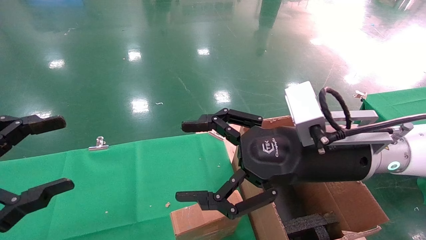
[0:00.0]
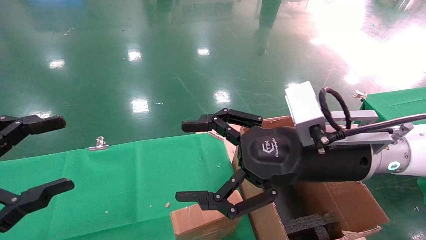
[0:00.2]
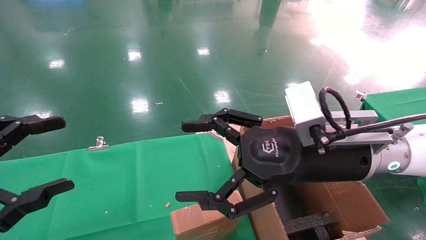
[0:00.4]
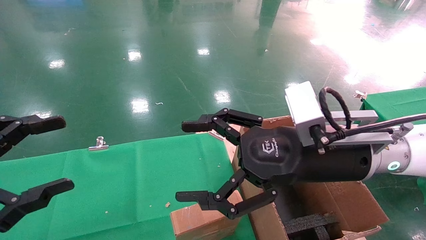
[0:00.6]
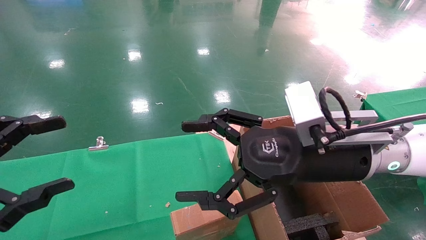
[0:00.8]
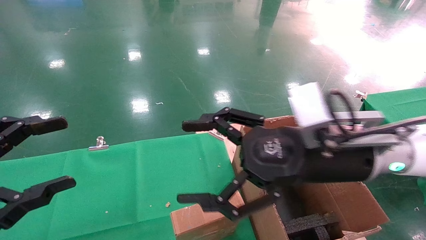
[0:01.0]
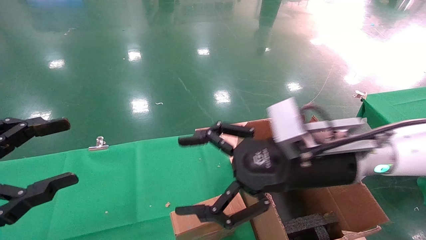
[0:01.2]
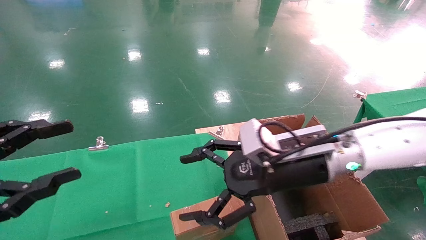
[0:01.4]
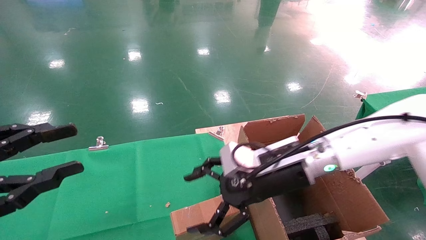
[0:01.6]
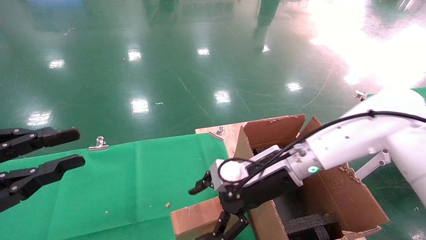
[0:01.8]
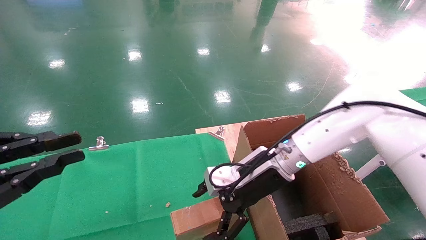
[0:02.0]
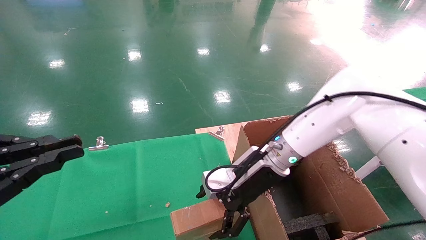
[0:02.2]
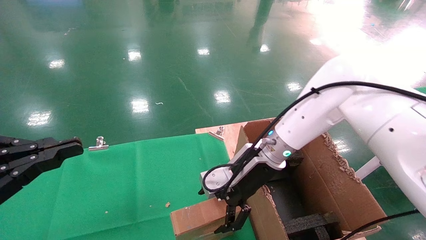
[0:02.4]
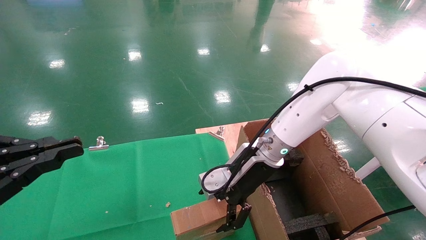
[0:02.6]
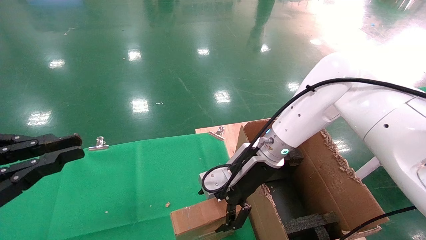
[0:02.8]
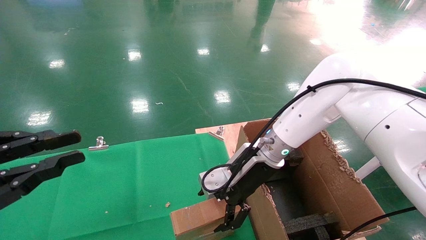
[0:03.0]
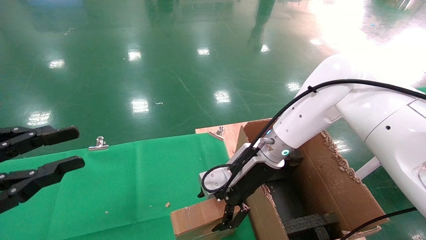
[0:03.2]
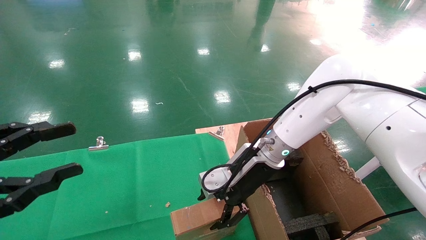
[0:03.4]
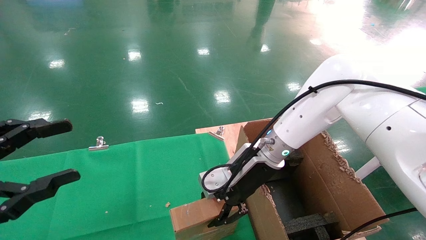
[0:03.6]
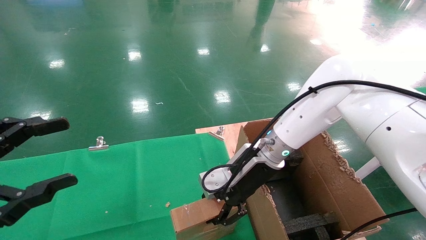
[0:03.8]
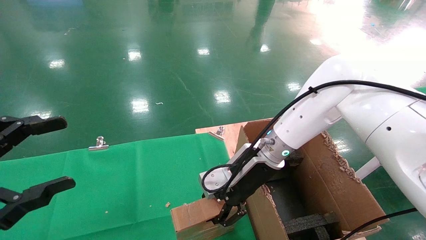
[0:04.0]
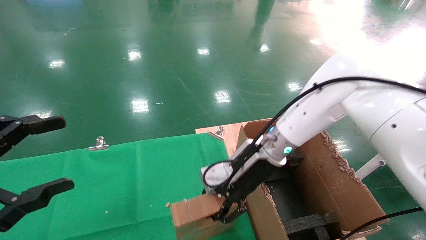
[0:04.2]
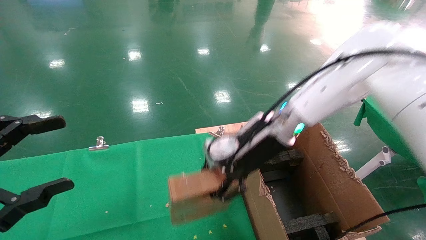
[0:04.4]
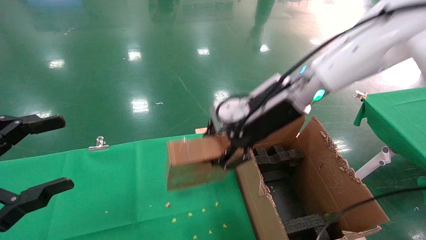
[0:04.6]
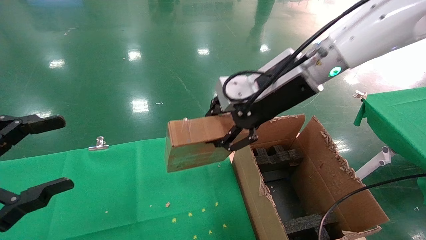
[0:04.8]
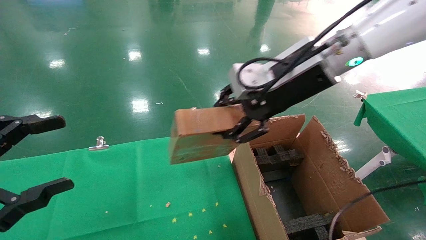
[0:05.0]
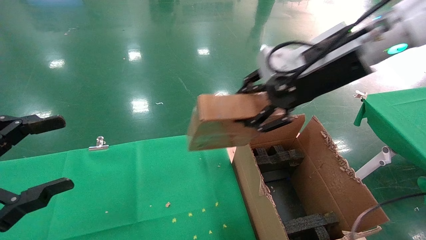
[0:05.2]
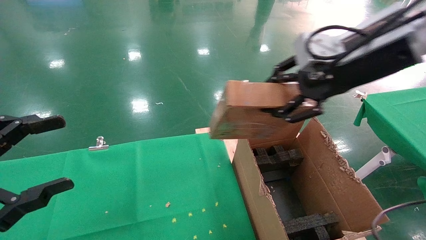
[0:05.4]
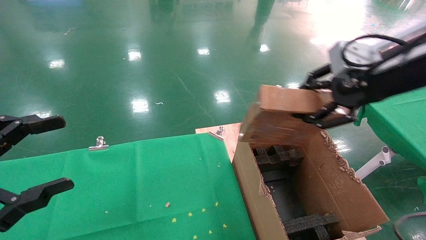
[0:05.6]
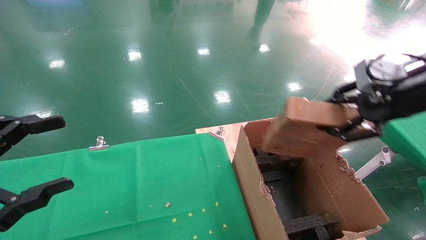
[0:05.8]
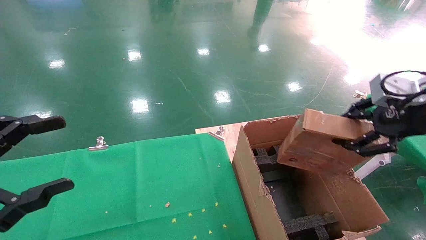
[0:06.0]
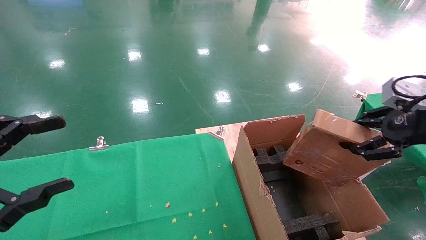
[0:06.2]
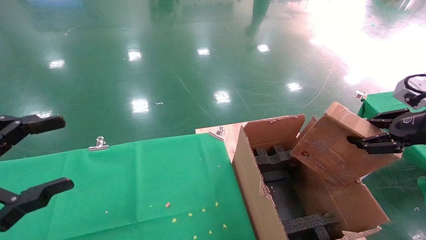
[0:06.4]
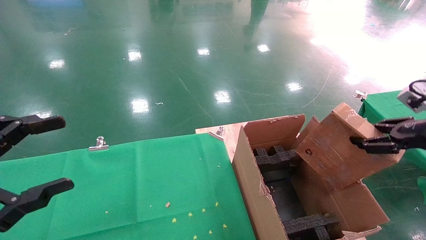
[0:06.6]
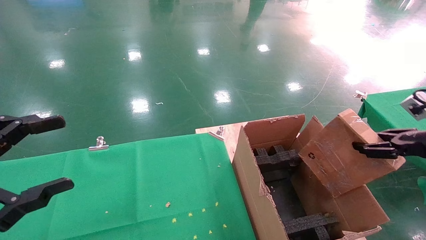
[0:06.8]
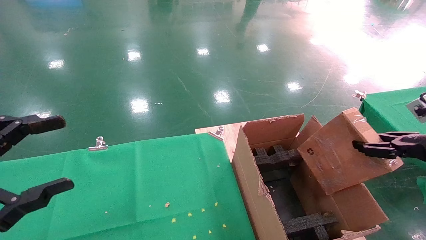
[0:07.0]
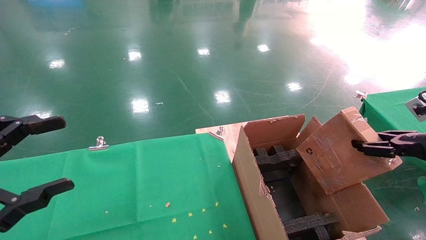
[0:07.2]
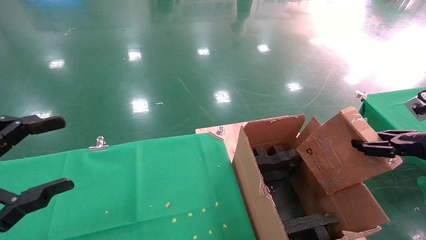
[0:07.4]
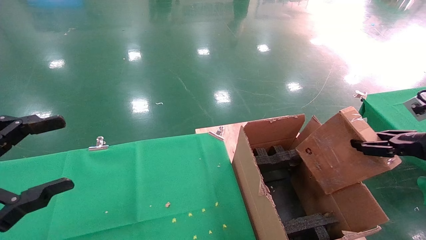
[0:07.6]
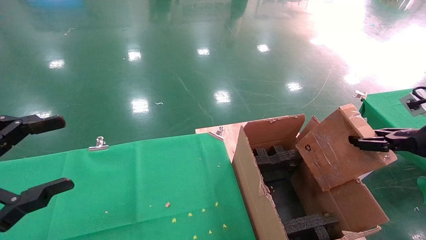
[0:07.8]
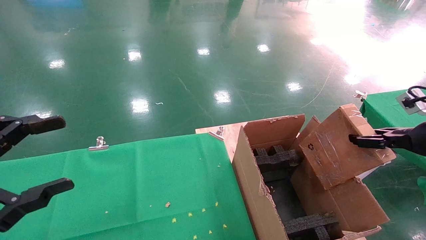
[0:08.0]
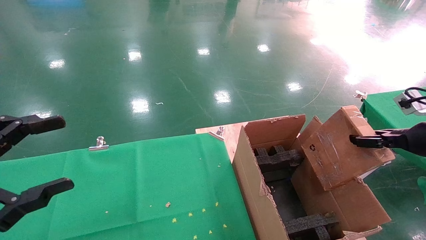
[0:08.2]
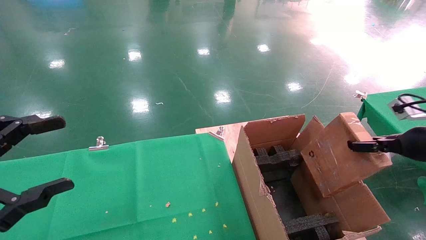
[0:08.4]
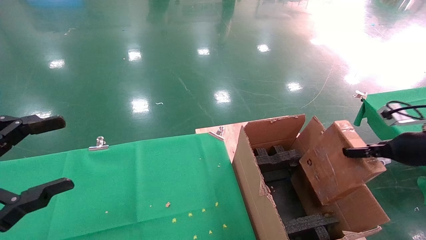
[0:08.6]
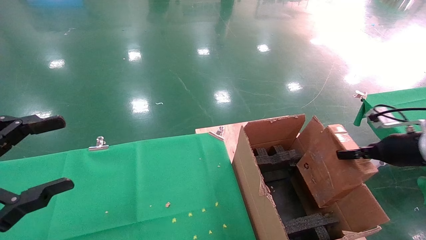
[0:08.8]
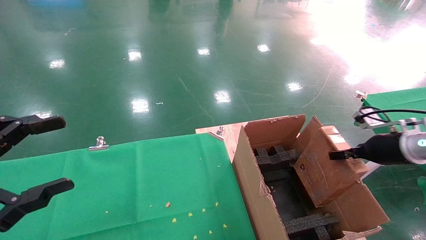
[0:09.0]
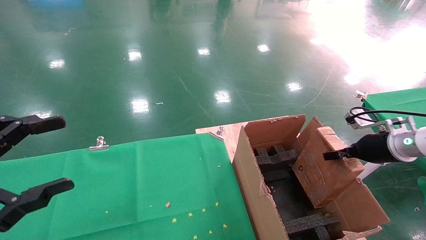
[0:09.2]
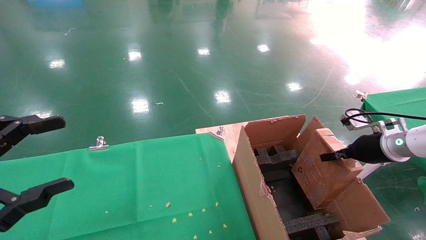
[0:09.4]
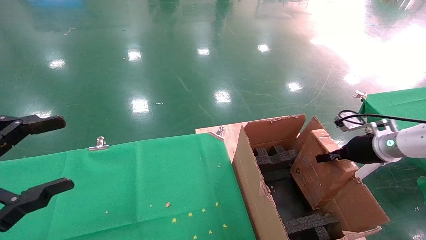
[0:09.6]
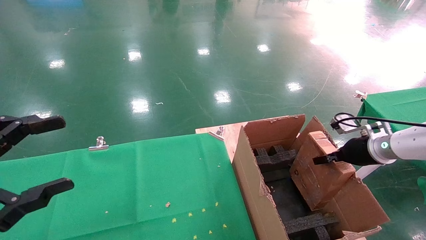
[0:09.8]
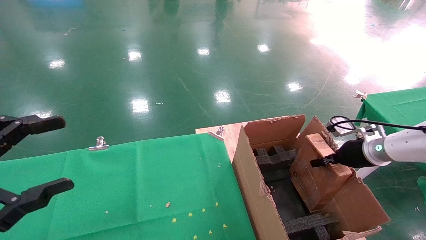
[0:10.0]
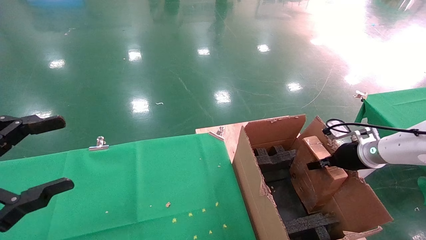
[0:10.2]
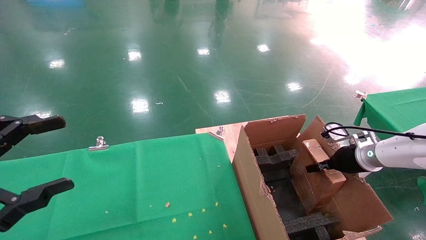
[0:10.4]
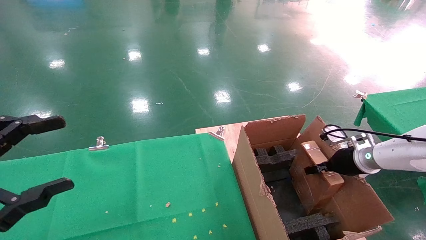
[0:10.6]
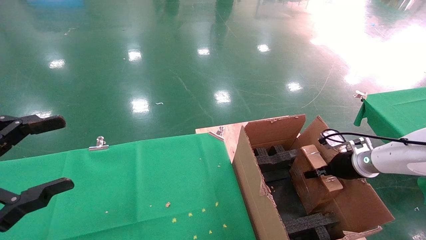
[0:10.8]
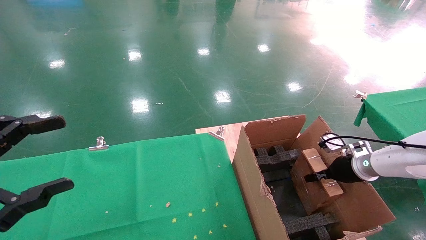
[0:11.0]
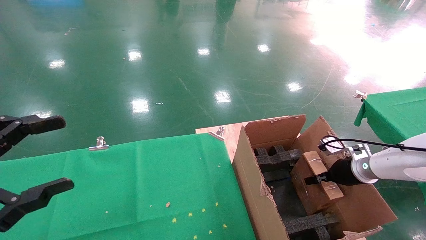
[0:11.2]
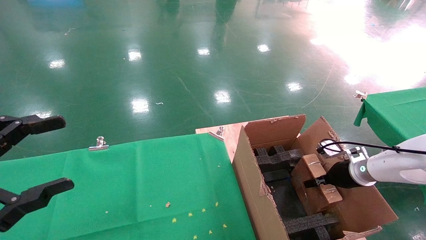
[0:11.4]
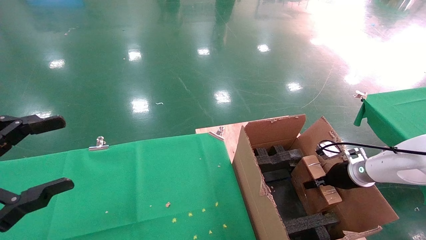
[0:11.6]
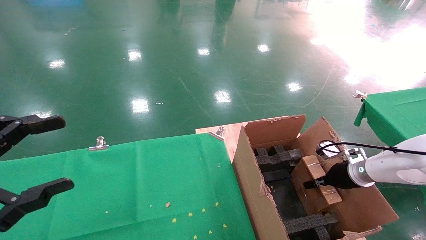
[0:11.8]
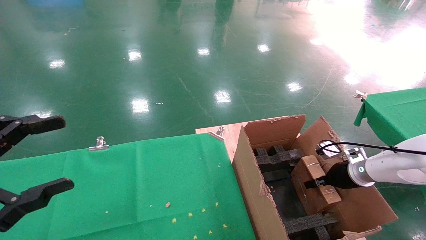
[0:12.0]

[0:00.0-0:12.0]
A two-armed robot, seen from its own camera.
Task of the whole recording: using a robotic arm to pick up a cardboard box and palace it the carton.
Step, 0:01.2 to 0:03.6: Pick up the mouse and the power cord paper box.
0:00.0 to 0:01.6: The right gripper shifts some 10 cm forward and downward.
0:01.6 to 0:03.0: The left gripper closes up. Meanwhile the right gripper travels forward by about 5 cm.
0:03.0 to 0:04.4: The right gripper moves upward, roughly 10 cm, and closes; the left gripper opens.
0:04.4 to 0:06.0: The right gripper moves to the right and backward, approximately 30 cm.
0:06.0 to 0:07.6: The right gripper shifts approximately 15 cm downward and to the right.
0:07.6 to 0:09.0: The right gripper heads forward, covering about 10 cm.
0:09.0 to 0:10.4: The right gripper shifts about 10 cm downward and forward.
0:10.4 to 0:12.0: The right gripper shifts some 5 cm downward.

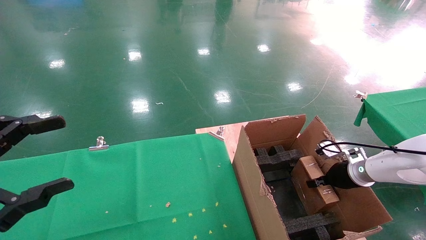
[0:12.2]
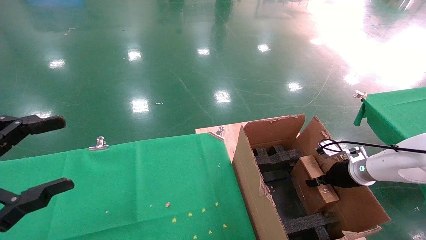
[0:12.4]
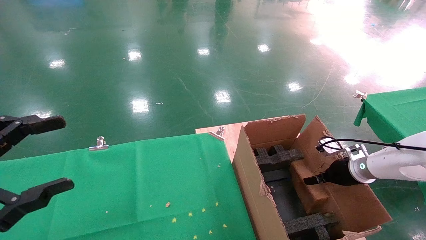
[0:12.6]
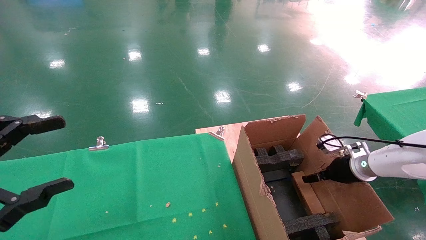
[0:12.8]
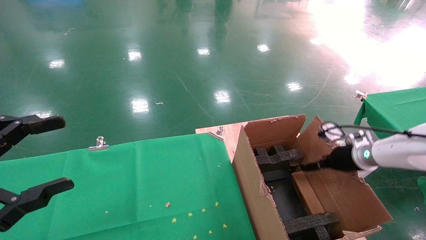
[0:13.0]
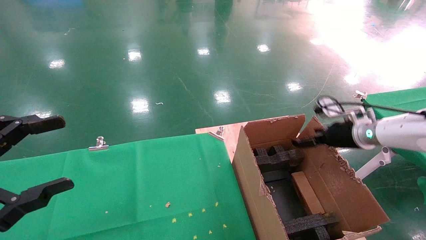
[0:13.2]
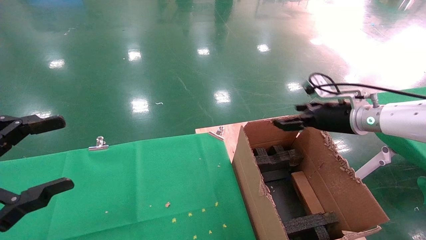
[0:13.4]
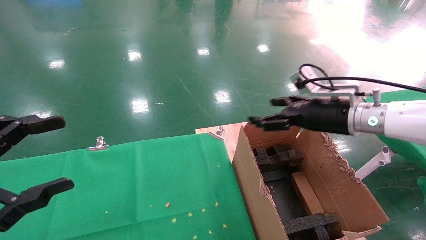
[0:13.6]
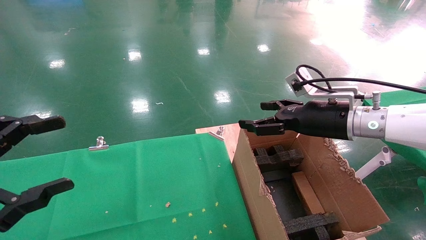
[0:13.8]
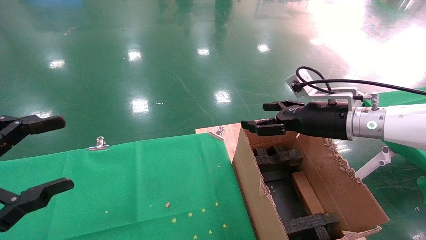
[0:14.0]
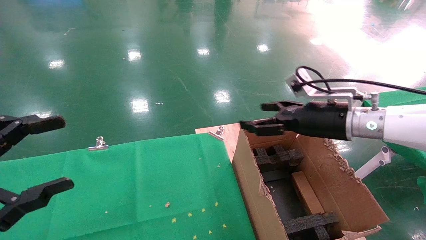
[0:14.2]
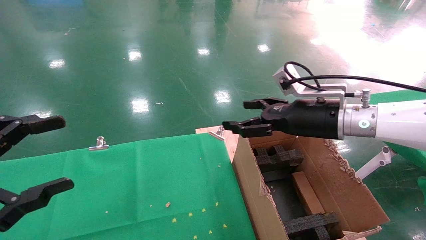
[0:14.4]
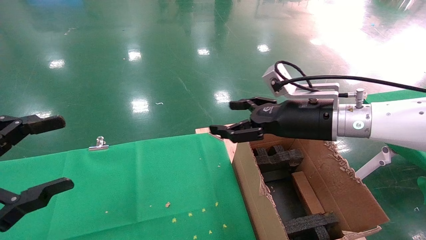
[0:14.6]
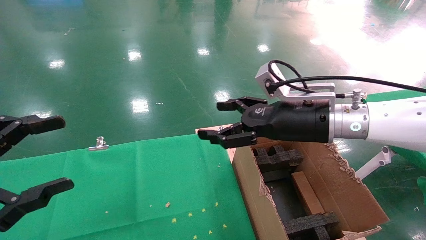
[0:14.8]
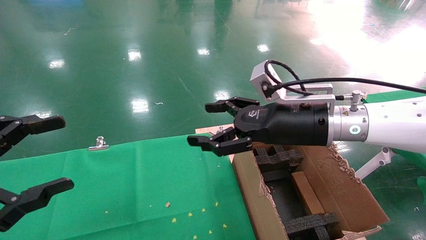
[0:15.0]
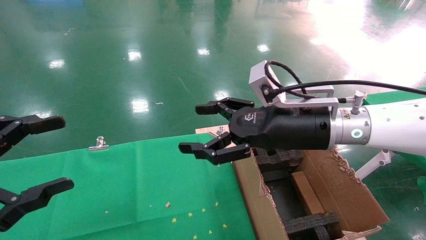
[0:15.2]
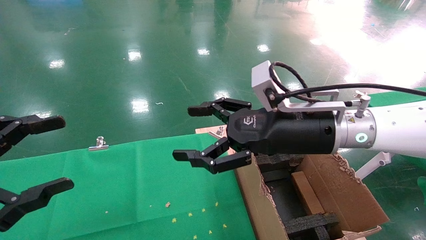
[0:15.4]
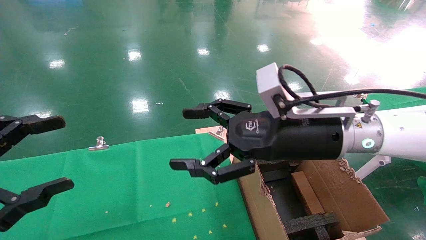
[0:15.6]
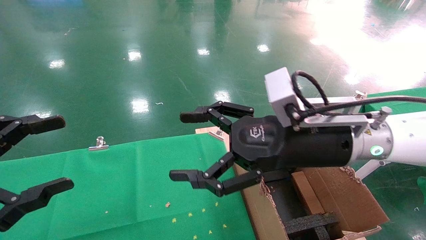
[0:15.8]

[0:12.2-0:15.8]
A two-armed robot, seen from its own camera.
Task of the whole recording: using a robotic arm to pick up a cardboard box and palace it the carton.
0:12.2 to 0:14.0: The right gripper heads upward and to the left, covering about 20 cm, and opens up.
0:14.0 to 0:15.8: The right gripper goes some 15 cm to the left and backward.

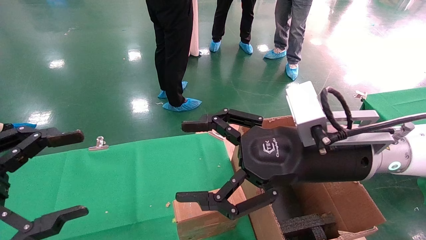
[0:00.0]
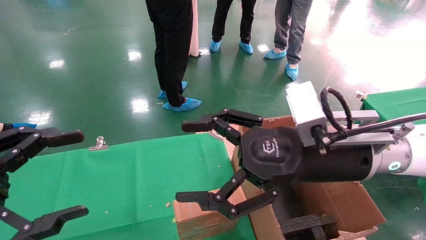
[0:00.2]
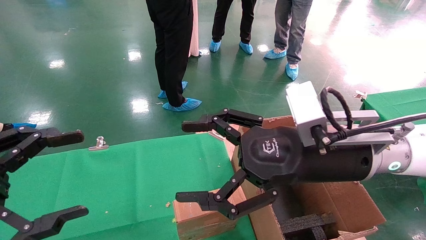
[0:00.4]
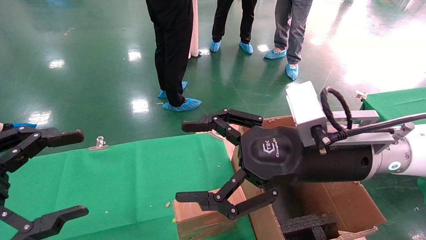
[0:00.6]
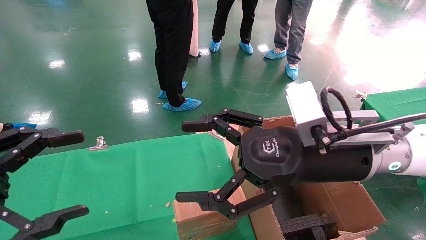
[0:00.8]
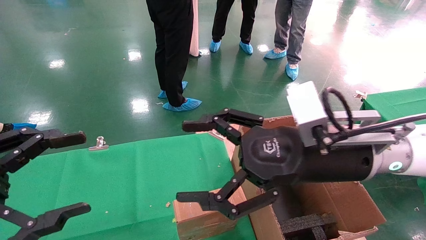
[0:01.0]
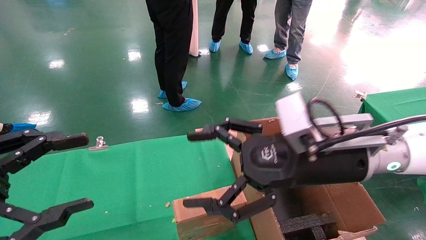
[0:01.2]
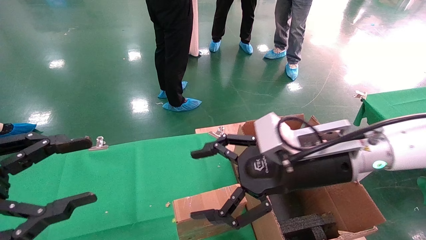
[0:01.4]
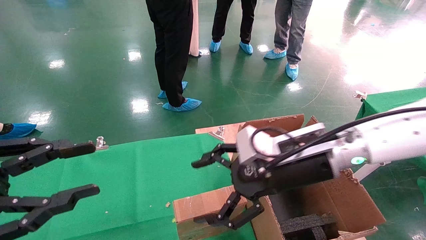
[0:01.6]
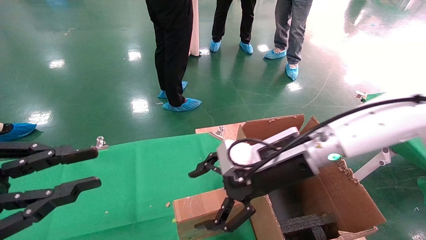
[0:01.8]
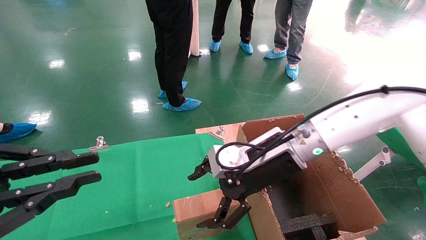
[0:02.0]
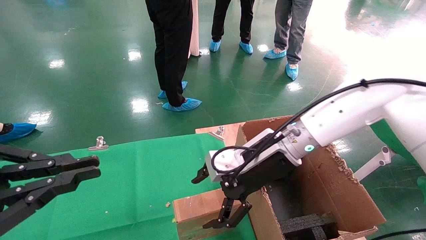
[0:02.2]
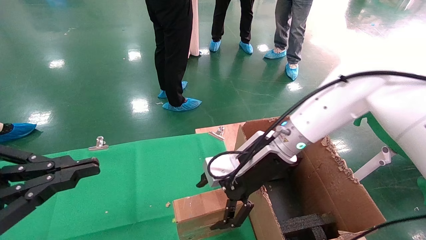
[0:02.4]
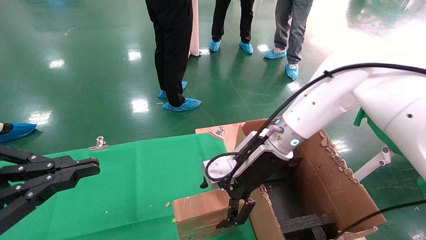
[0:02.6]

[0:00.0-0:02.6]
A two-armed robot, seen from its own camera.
Task of the whole recording: using a robotic arm to pick up a cardboard box and palace it the carton.
0:00.0 to 0:01.2: There are only small adjustments of the grippers.
0:01.2 to 0:02.6: The left gripper closes up. Meanwhile the right gripper is displaced forward by approximately 10 cm.
